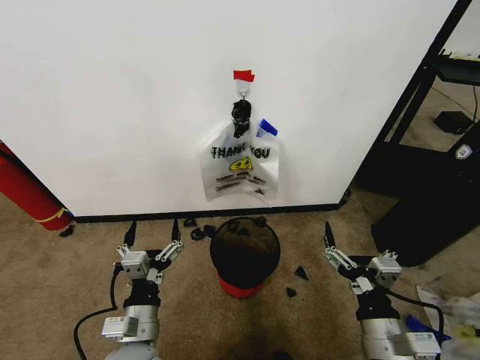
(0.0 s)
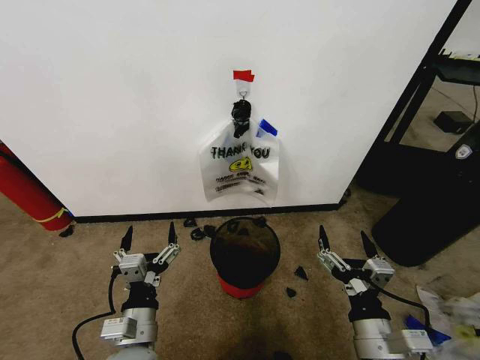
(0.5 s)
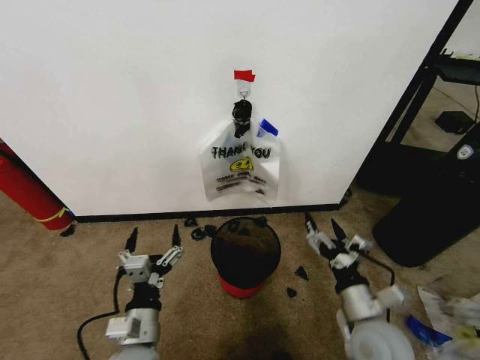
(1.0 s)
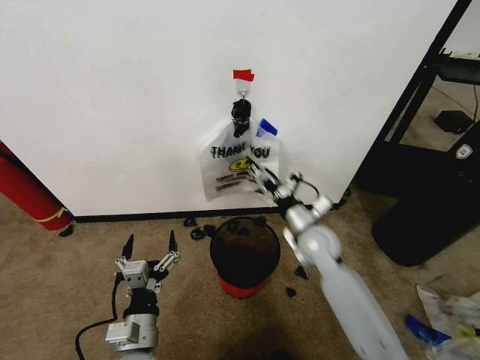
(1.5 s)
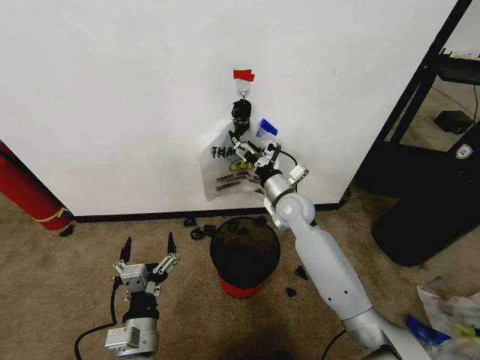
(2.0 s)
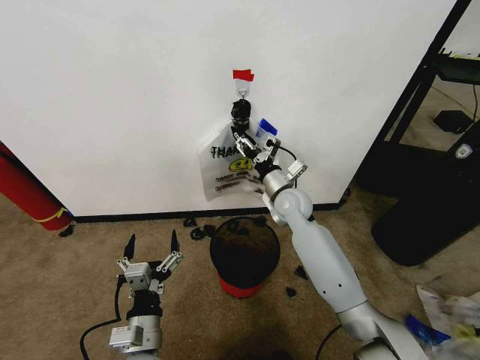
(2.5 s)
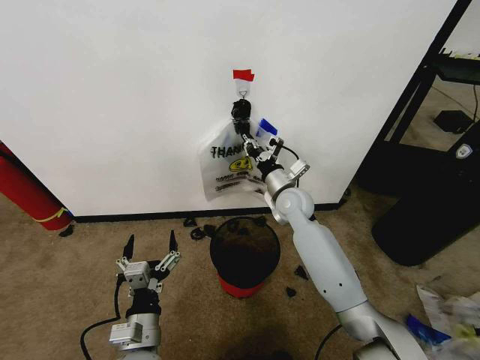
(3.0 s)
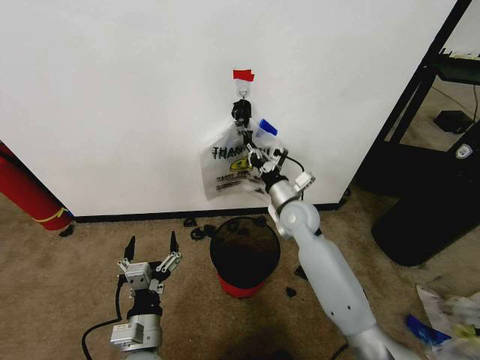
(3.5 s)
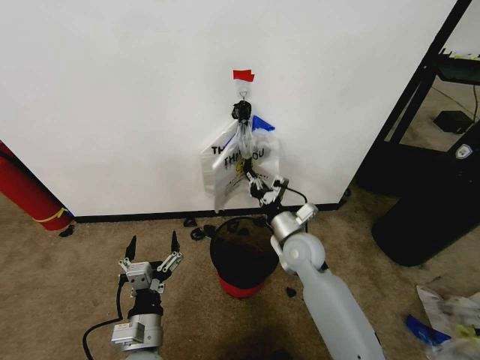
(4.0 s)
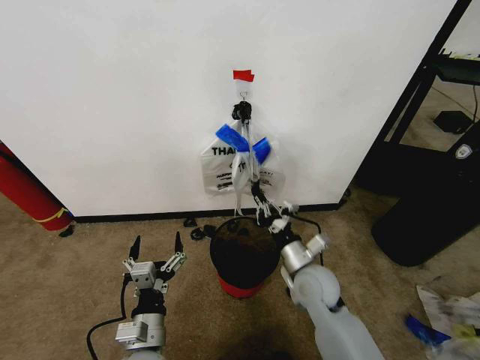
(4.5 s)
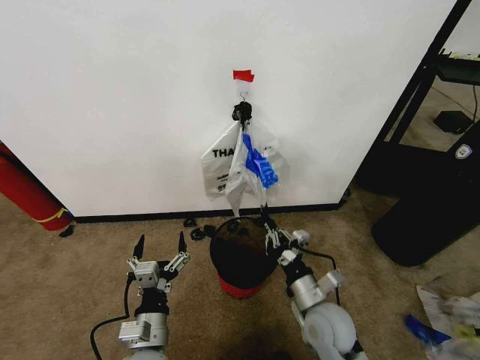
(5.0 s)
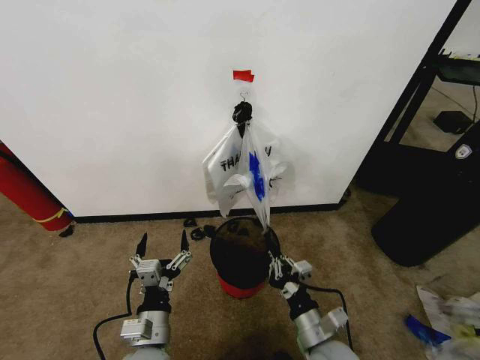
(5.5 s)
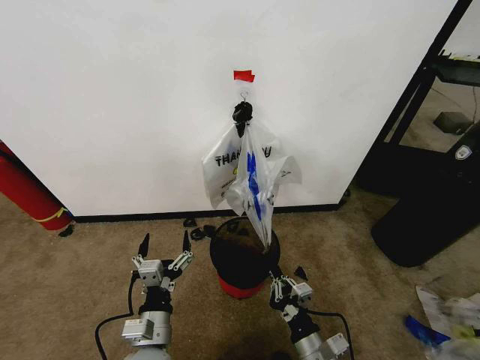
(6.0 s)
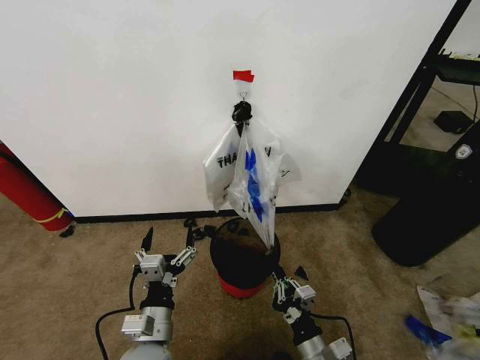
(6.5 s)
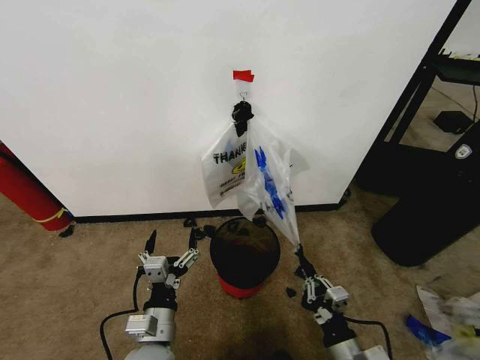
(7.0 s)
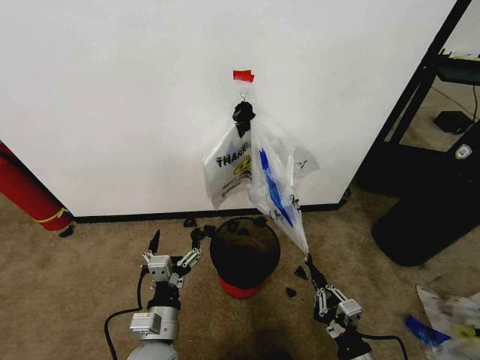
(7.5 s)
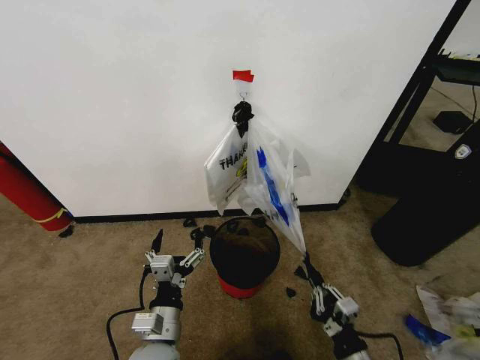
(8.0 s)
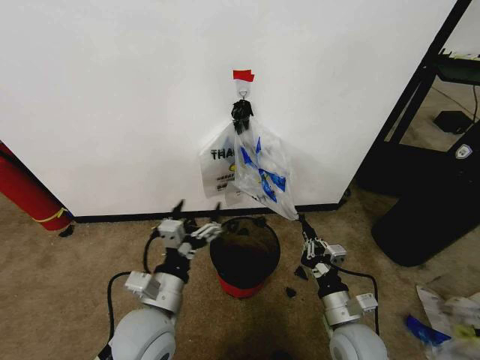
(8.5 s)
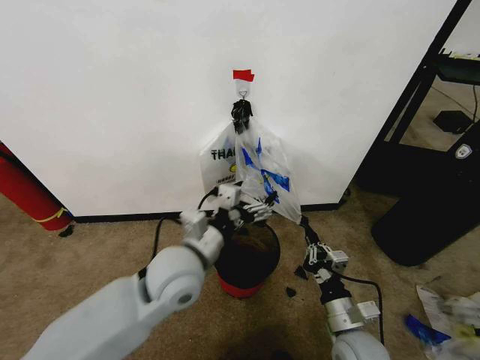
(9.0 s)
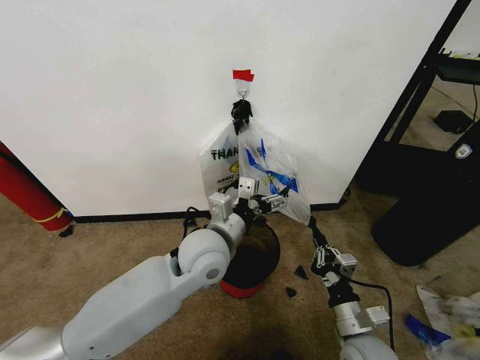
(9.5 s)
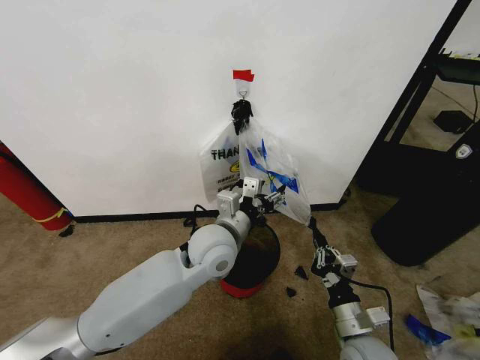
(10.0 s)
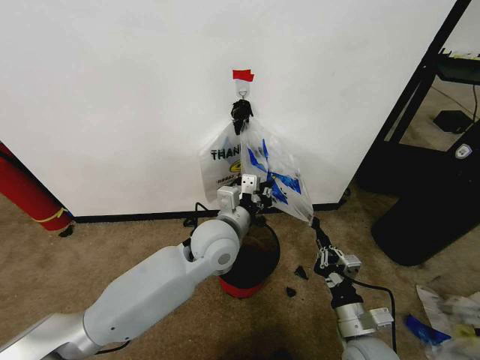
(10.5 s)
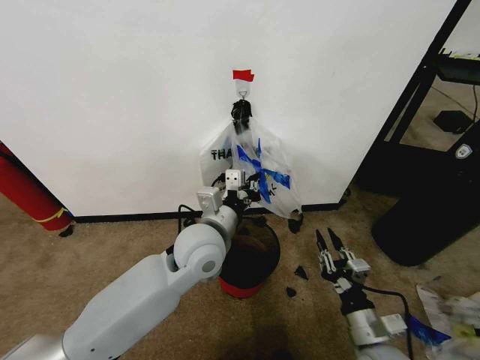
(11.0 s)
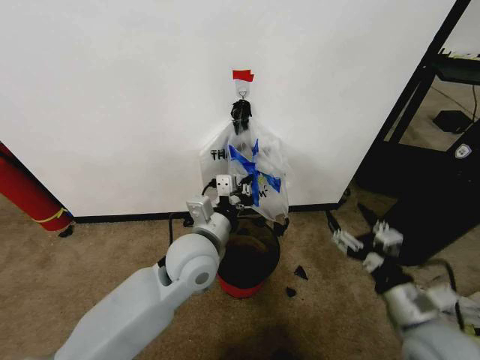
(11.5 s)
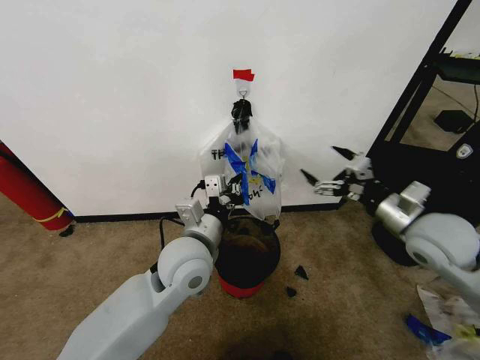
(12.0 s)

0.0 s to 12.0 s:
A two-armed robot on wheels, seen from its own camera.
Task of the whole recording: Pick up the garbage bag from the wall and place it over the trash bin.
2.0 to 4.0 s: The right gripper goes roughly 10 cm backward, and closes up.
4.0 to 6.0 s: The right gripper travels backward by approximately 25 cm.
6.0 to 8.0 s: The right gripper heads to the right, covering some 10 cm.
8.0 to 10.0 s: The right gripper heads forward, covering some 5 cm. Meanwhile the left gripper shifts about 25 cm forward, upward and to the right, and closes its fingers.
10.0 to 12.0 s: The right gripper moves upward, forward and to the right, roughly 25 cm, and opens, while the left gripper ends up about 5 cm from where it was, and closes its fingers.

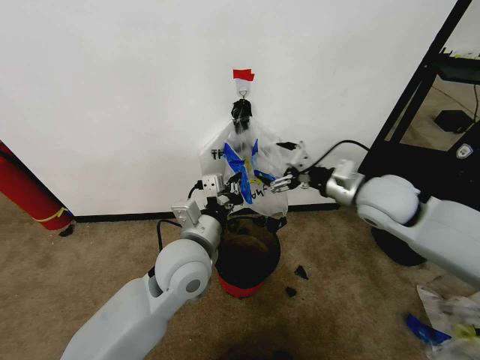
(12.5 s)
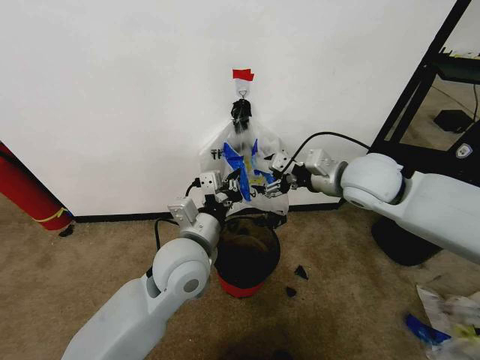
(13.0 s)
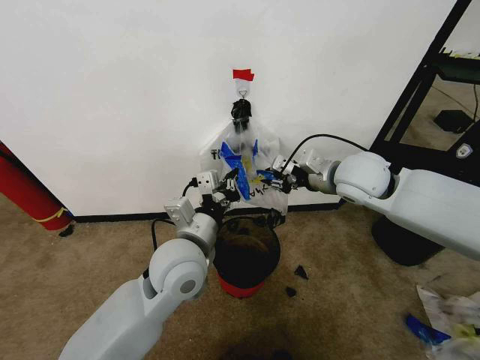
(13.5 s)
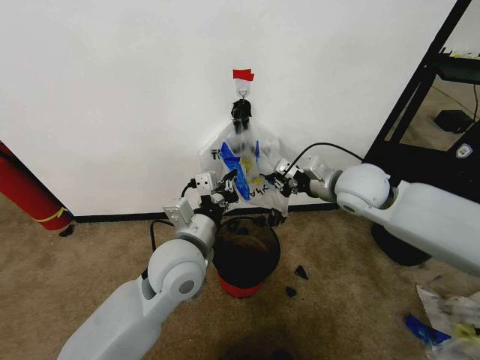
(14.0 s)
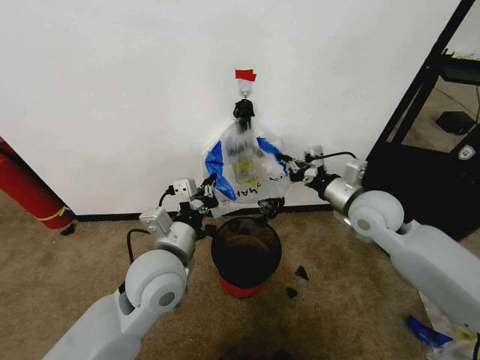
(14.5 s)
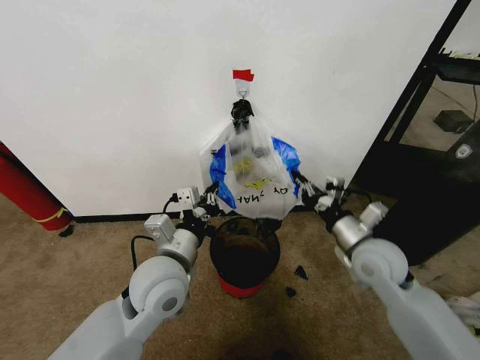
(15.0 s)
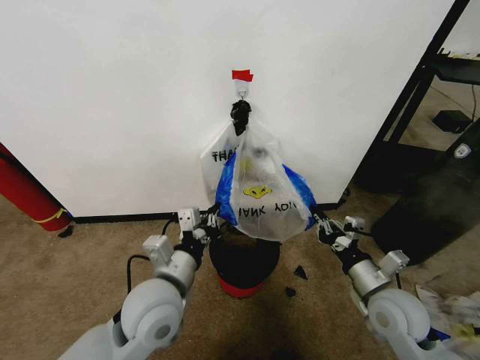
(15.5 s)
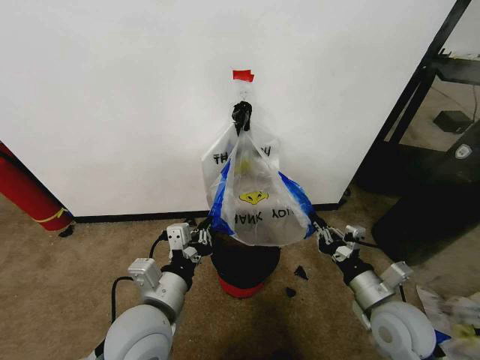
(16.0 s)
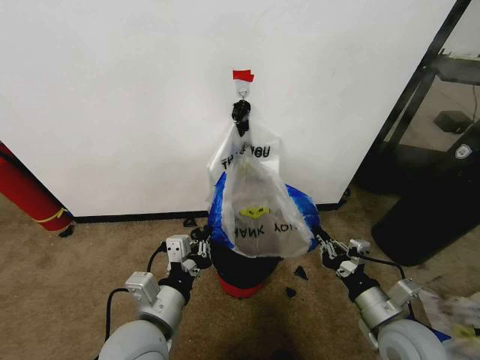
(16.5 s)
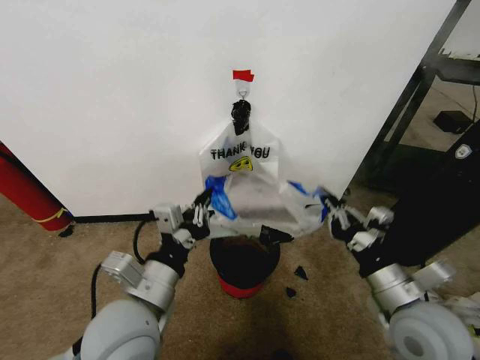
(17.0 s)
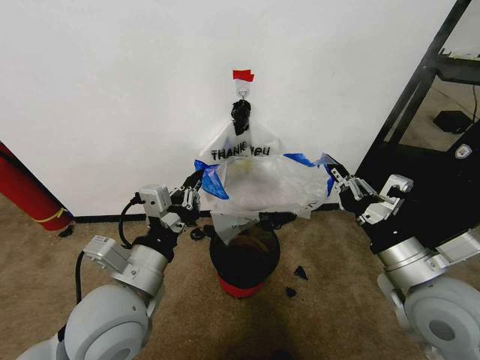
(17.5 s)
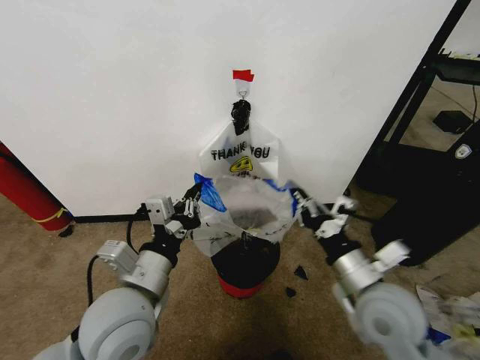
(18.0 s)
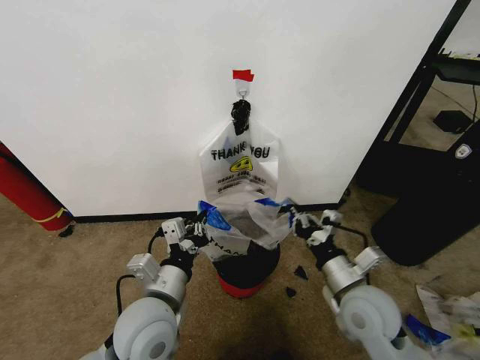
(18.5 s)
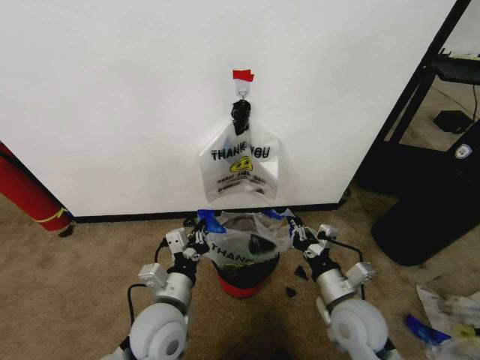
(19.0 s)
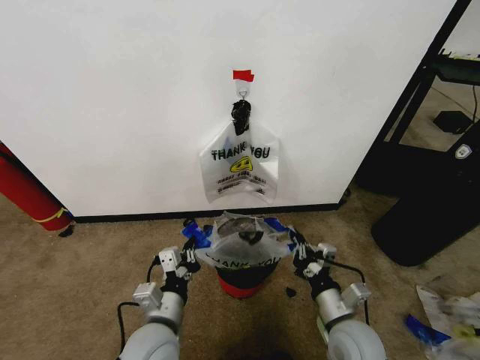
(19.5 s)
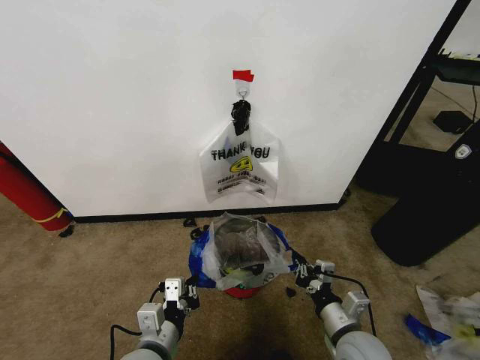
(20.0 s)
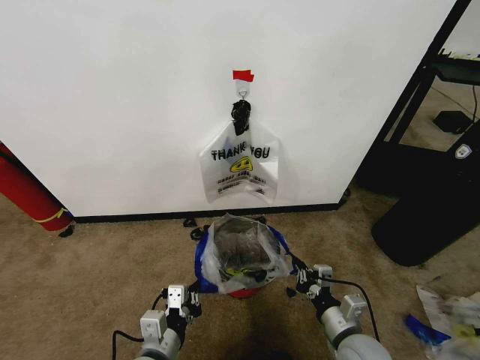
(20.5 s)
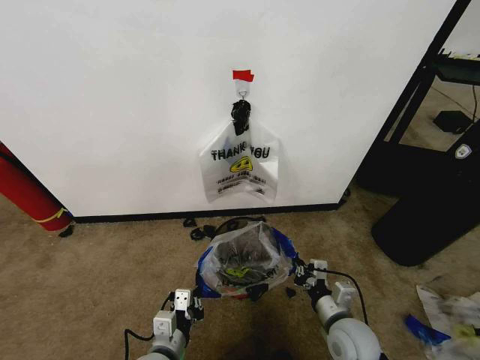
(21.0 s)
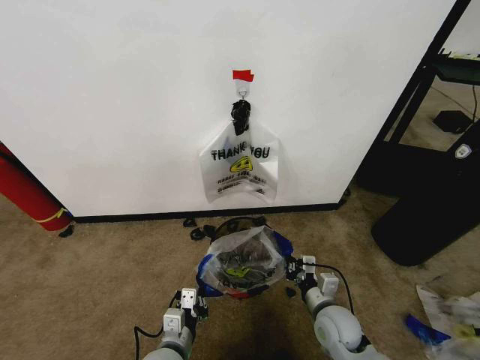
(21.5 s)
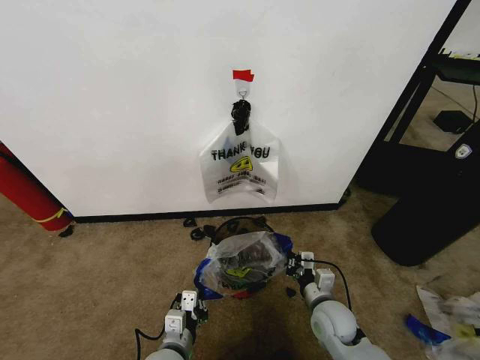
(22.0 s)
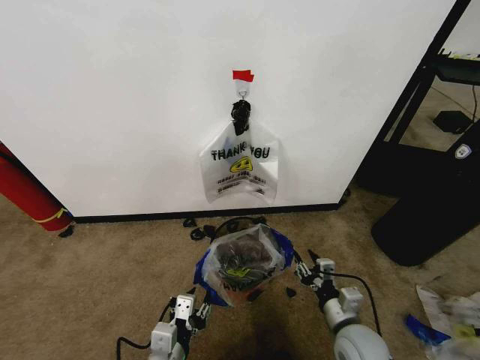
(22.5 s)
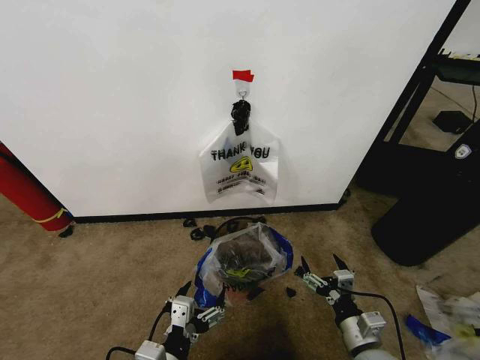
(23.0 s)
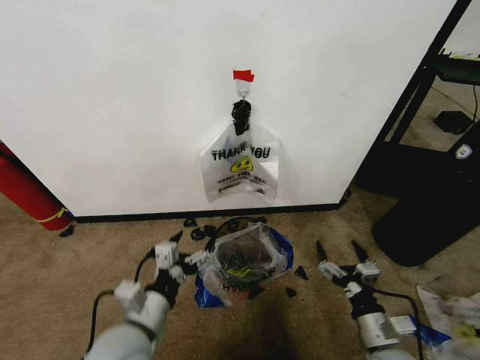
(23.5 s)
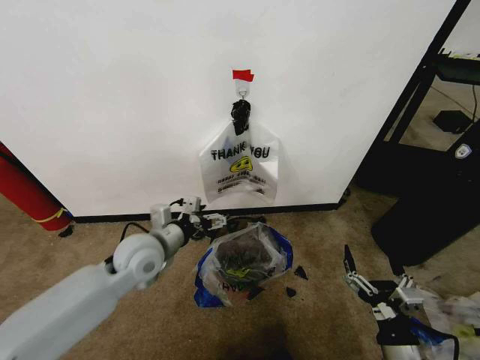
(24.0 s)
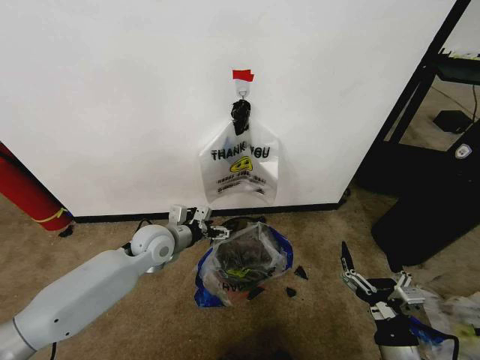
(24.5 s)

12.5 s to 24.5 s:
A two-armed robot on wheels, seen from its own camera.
Task of the whole recording: Pick up the garbage bag from the wall and place it over the trash bin.
12.5 to 14.5 s: The right gripper closes its fingers.
14.5 to 16.5 s: The left gripper shifts some 10 cm backward; the right gripper goes approximately 25 cm backward and downward.
16.5 to 18.5 s: The left gripper reaches roughly 5 cm upward, then returns. The right gripper heads to the left and forward, covering roughly 10 cm, and moves some 15 cm upward and comes back.
18.5 to 20.5 s: The grippers both shift downward and backward by some 10 cm.
20.5 to 22.5 s: The right gripper goes forward and returns, approximately 10 cm each way, and opens; the left gripper opens up.
22.5 to 24.5 s: The left gripper shifts approximately 30 cm forward, and opens up. Meanwhile the right gripper goes roughly 10 cm backward and upward, and opens.

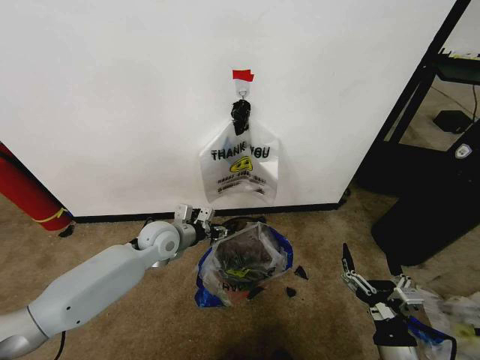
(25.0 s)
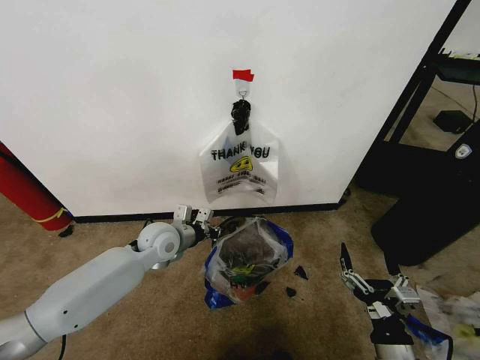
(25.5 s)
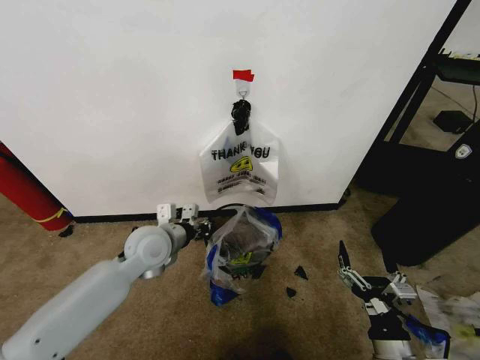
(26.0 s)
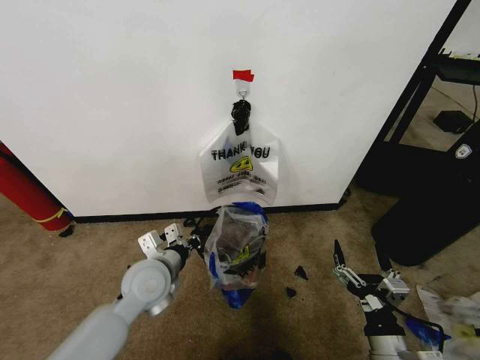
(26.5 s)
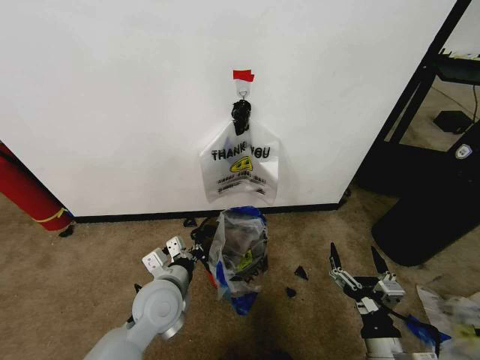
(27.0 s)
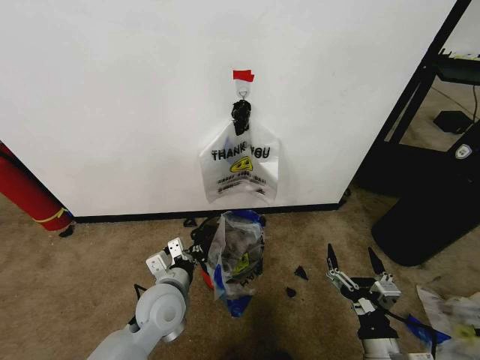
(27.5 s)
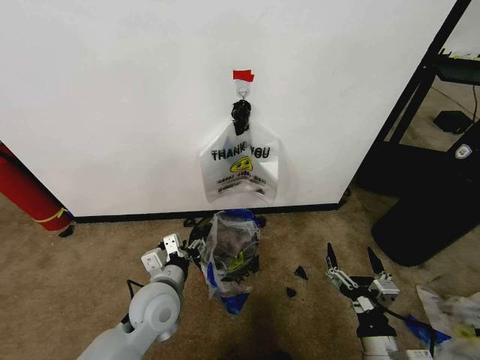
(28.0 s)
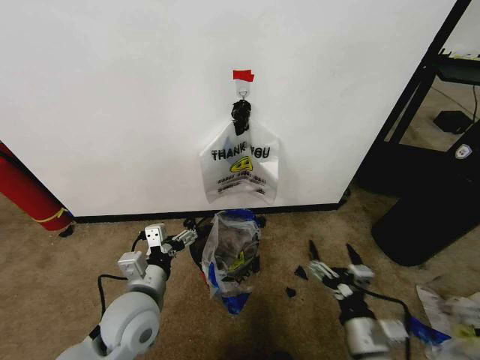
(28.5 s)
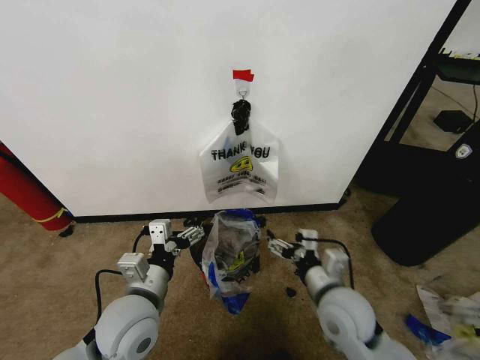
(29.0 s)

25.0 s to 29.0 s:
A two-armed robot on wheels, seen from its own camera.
Task of the whole recording: Pick up the garbage bag from the wall and place it over the trash bin.
25.0 to 27.0 s: The left gripper shifts about 15 cm backward, and closes up.
27.0 to 29.0 s: The right gripper is displaced forward, to the left and upward by about 15 cm. Meanwhile the left gripper is displaced backward by some 5 cm, and opens its fingers.
